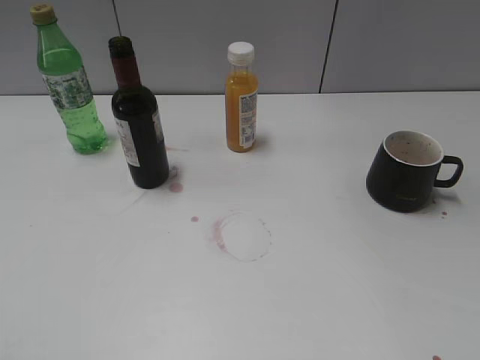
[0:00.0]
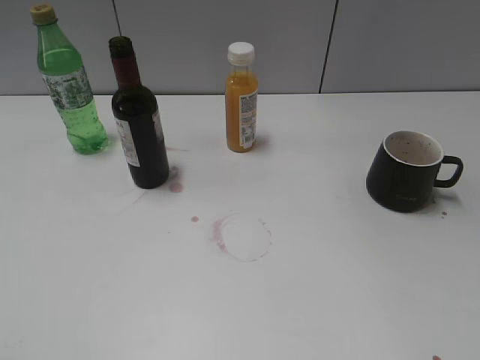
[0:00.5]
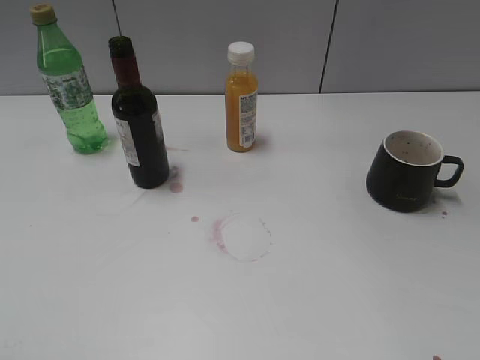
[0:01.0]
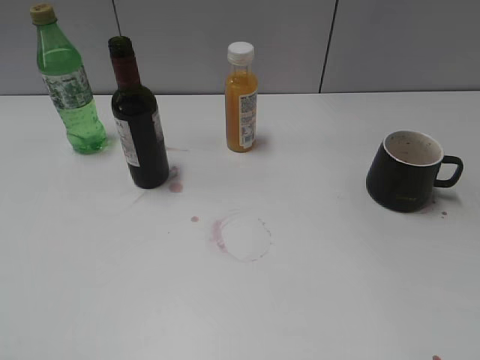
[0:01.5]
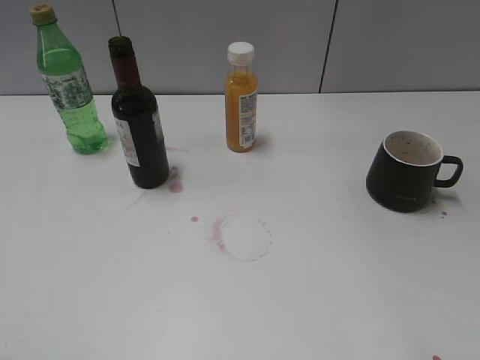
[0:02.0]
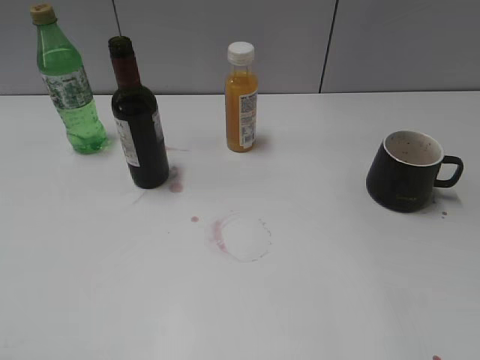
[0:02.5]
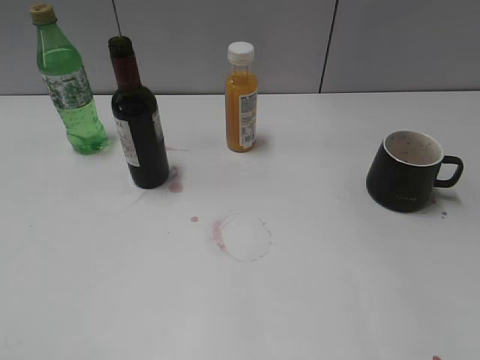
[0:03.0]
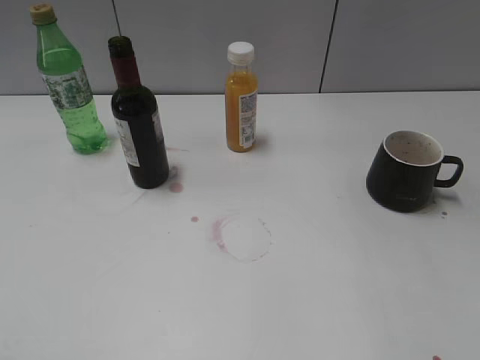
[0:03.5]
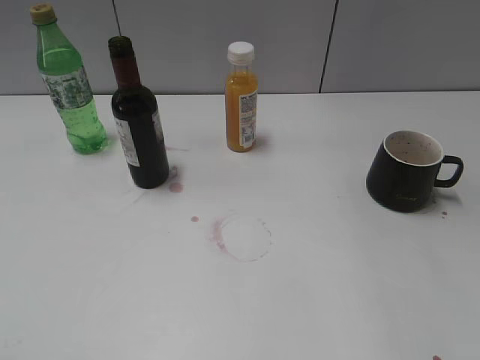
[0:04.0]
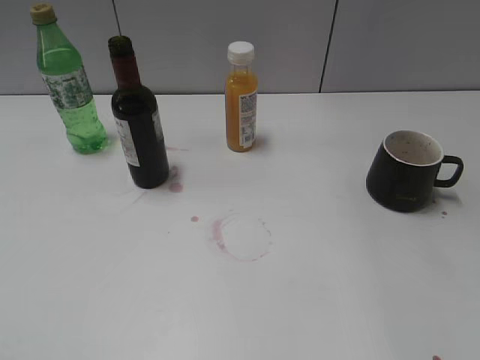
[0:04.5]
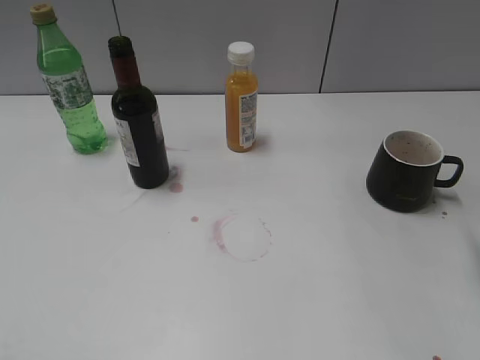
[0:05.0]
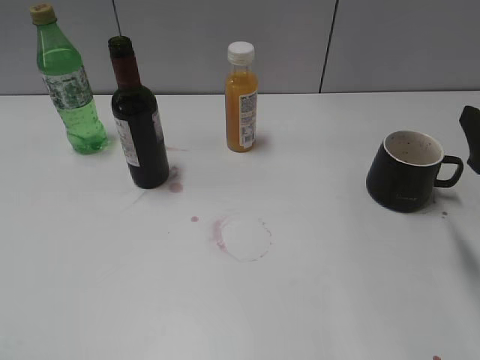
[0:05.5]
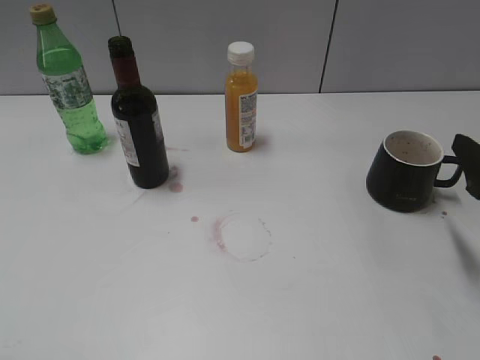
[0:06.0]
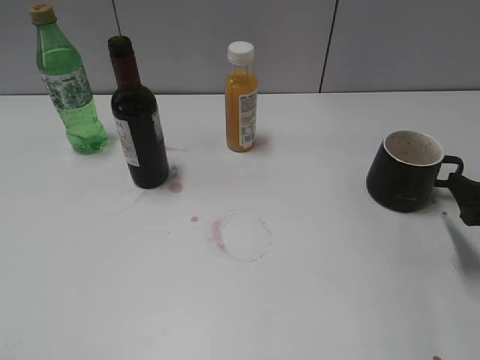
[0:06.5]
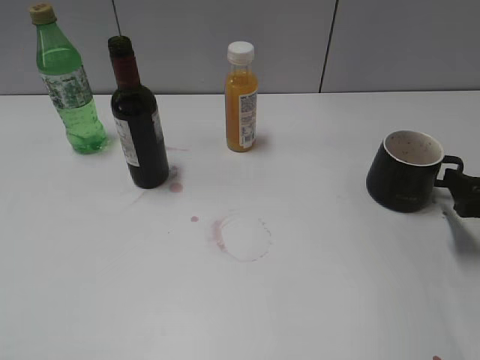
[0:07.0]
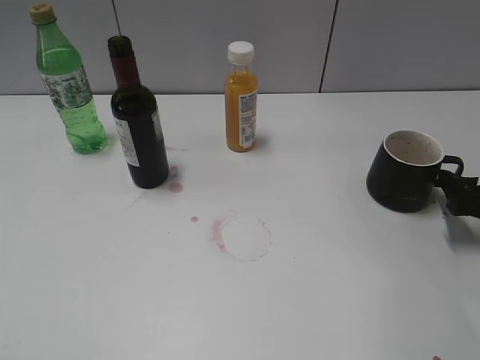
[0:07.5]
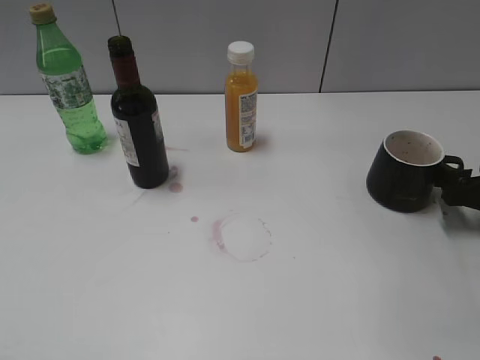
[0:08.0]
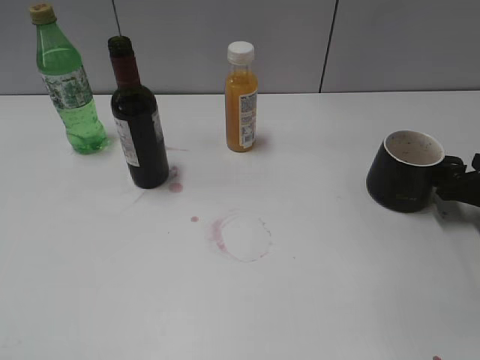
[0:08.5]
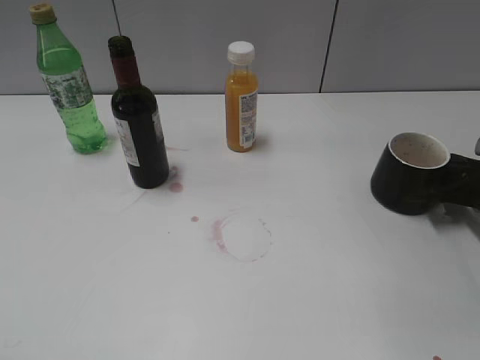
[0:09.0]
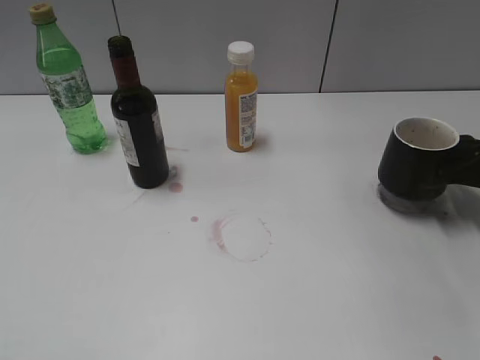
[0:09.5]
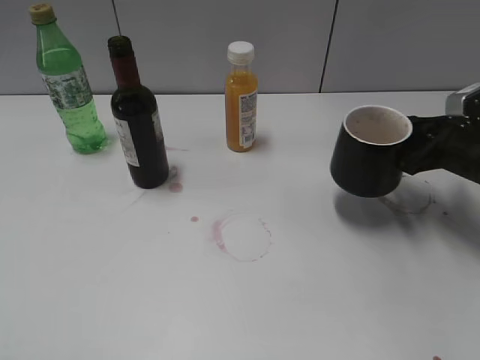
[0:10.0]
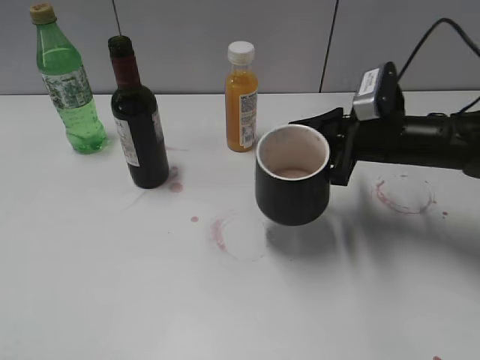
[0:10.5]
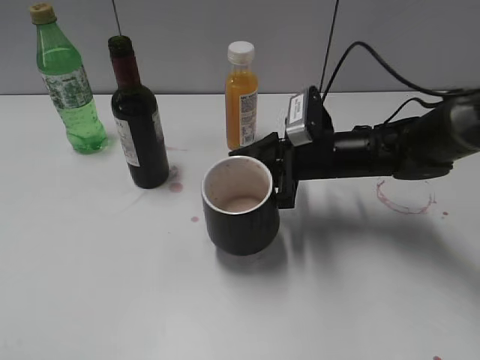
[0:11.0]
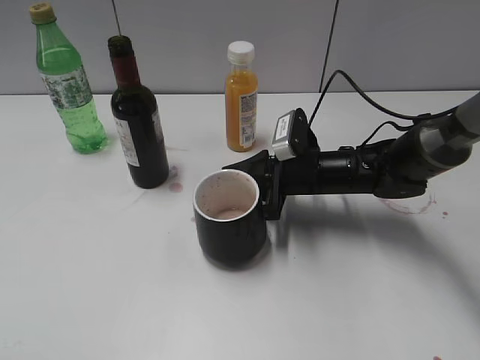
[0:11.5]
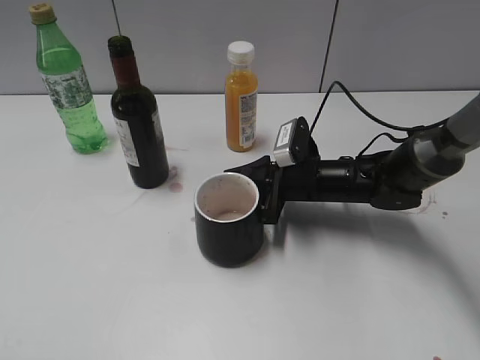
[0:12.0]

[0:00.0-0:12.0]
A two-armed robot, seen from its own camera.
Step, 0:05.5 to 0:09.0: Grasp the black cup with right gripper.
0:04.0 to 0:06.0: The right gripper goes about 10 cm downward and forward.
0:06.0 to 0:08.0: The right gripper shifts approximately 10 cm downward and forward.
0:08.0 to 0:10.0: The right gripper heads to the left and upward, covering approximately 10 cm, and closes its fingers.
0:10.0 to 0:12.0: The right gripper shifts roughly 20 cm to the left.

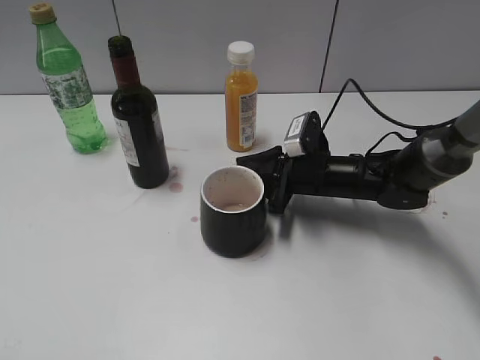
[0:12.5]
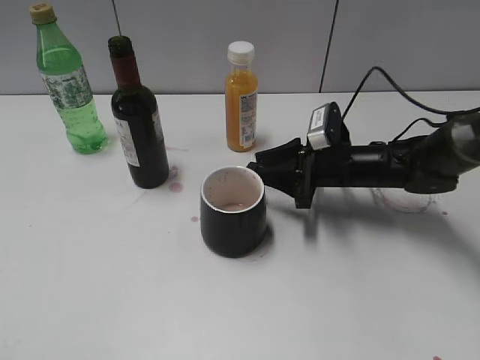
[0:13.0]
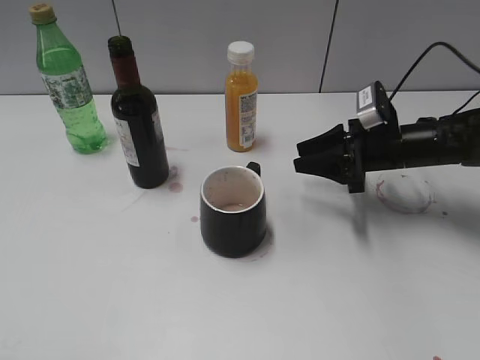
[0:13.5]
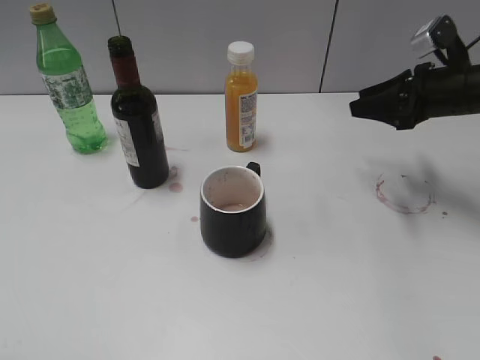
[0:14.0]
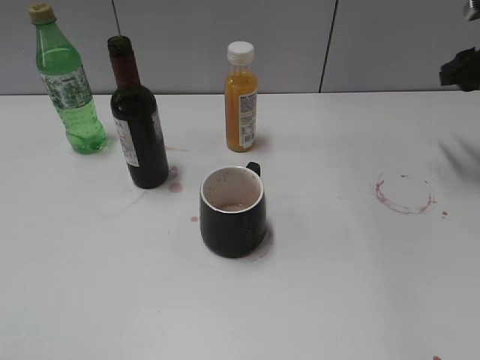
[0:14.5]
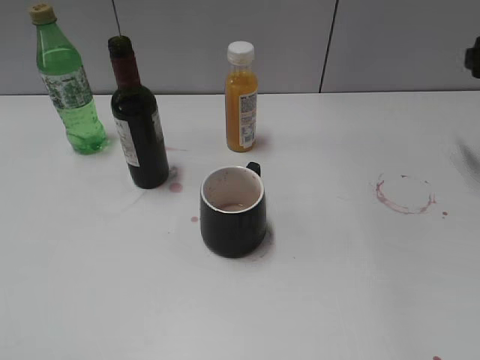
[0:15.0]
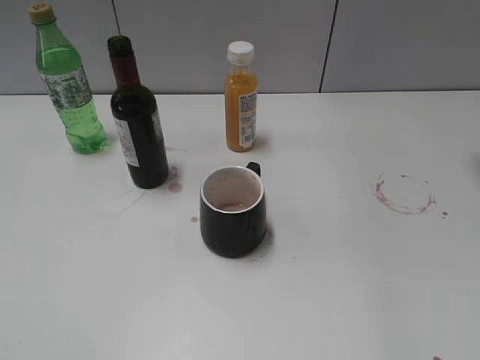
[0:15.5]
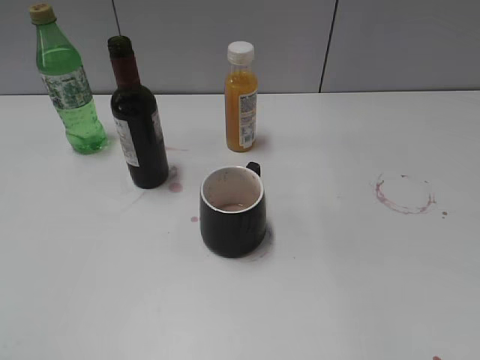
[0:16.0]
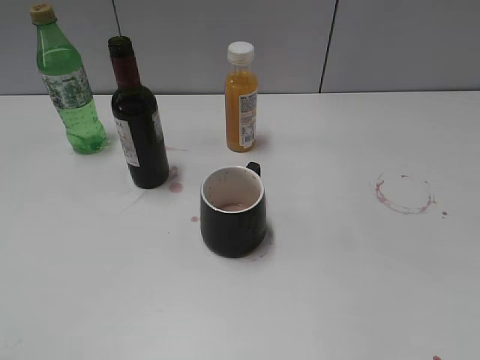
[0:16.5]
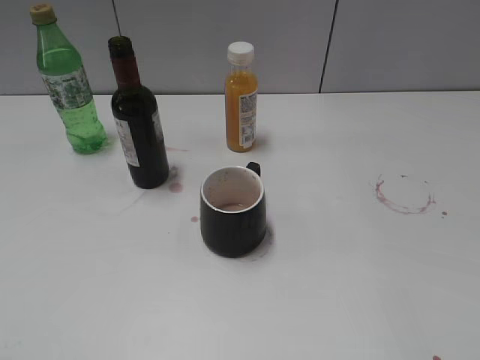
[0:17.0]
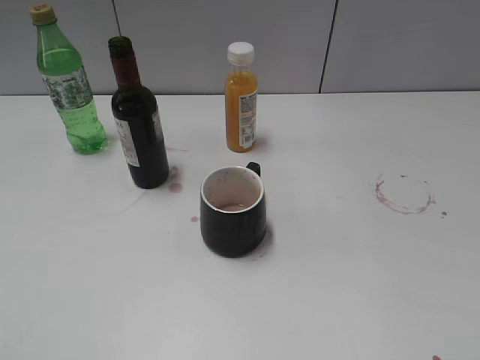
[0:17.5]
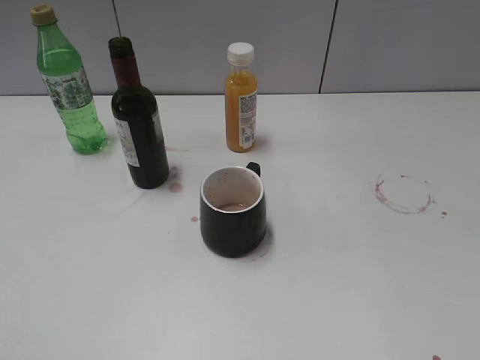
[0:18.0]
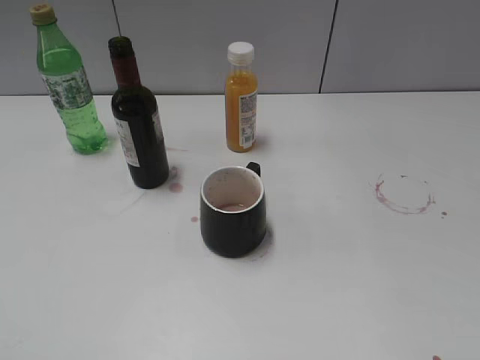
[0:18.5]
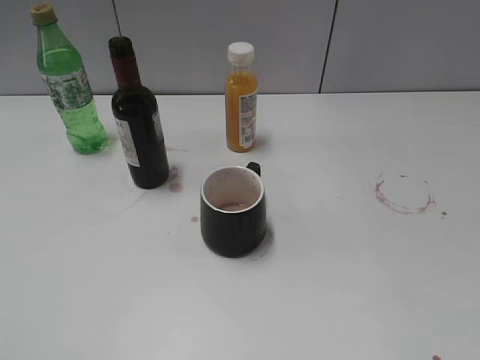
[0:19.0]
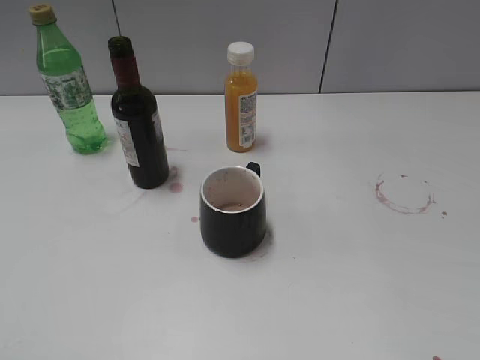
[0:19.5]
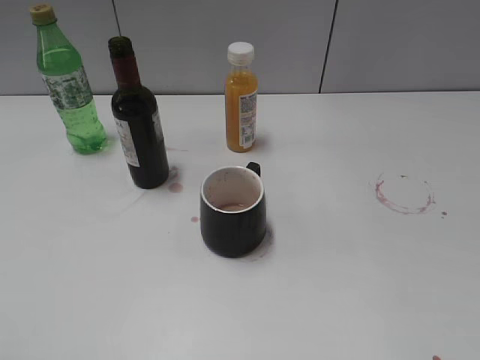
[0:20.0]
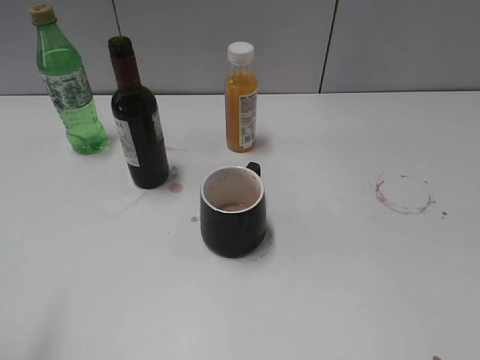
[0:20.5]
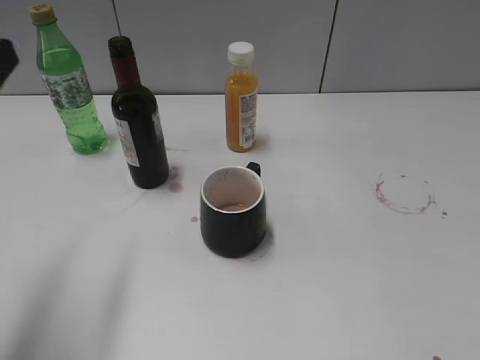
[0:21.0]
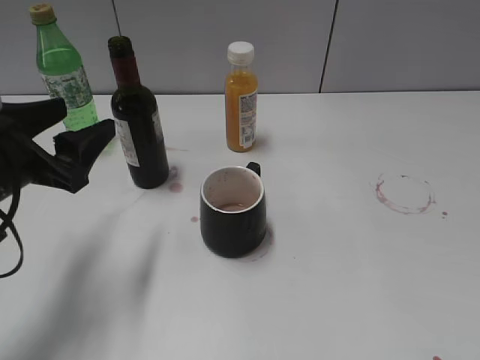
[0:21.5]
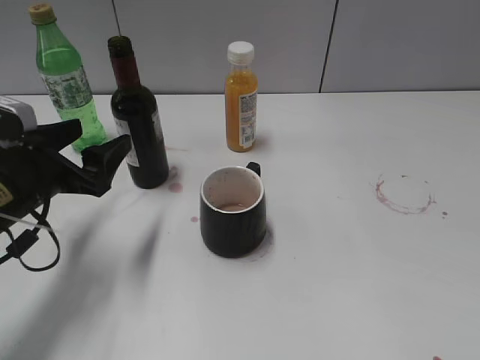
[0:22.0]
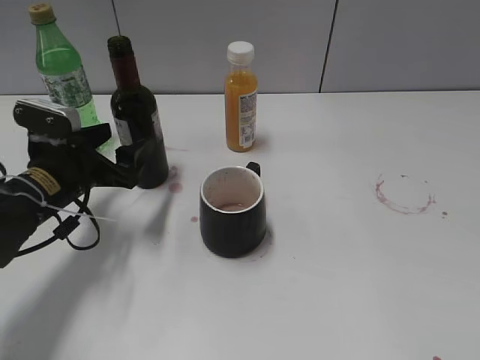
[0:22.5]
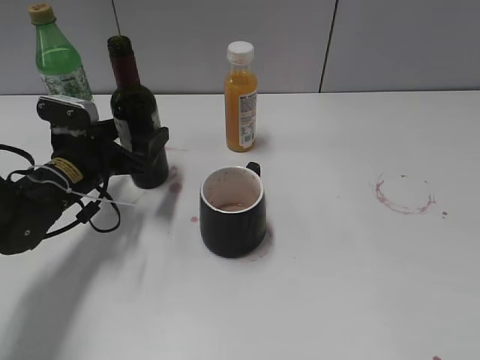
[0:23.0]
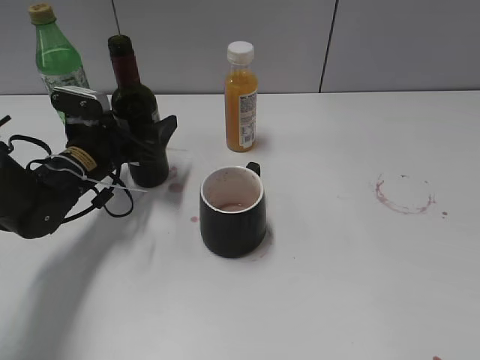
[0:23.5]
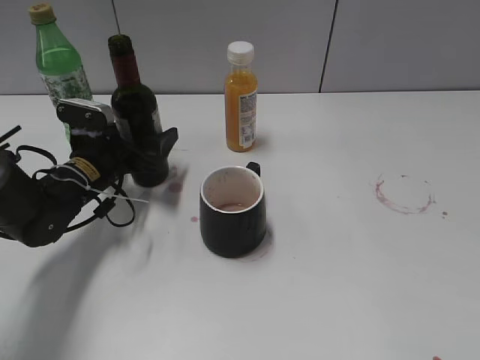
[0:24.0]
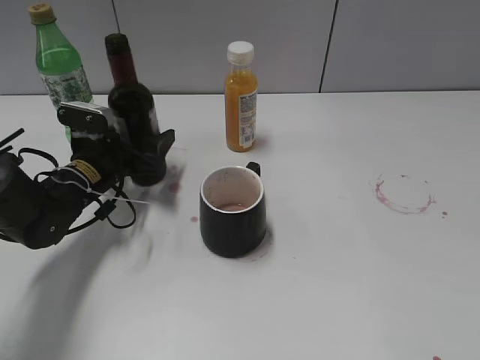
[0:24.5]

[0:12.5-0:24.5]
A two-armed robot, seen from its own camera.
0:12.5 to 0:14.5: The right gripper moves to the right and upward, roughly 25 cm.
0:14.5 to 0:16.5: The right gripper shifts about 20 cm upward and backward, and opens.
0:20.5 to 0:22.5: The left gripper shifts approximately 30 cm forward and downward, and opens its fingers.
0:22.5 to 0:24.5: The left gripper travels forward by some 5 cm, and closes its fingers.

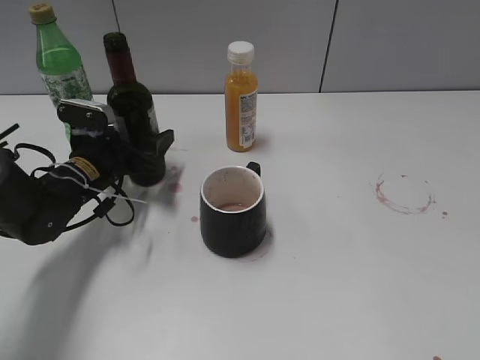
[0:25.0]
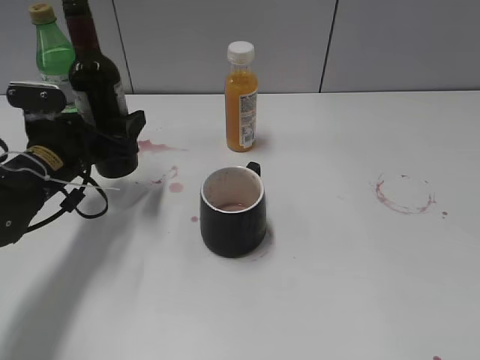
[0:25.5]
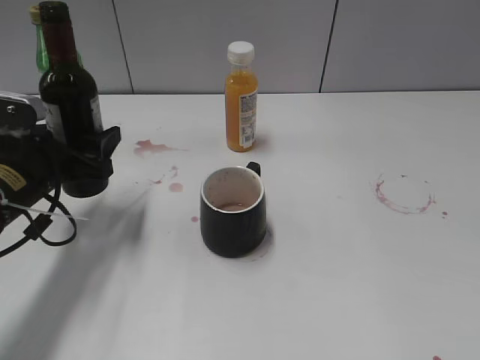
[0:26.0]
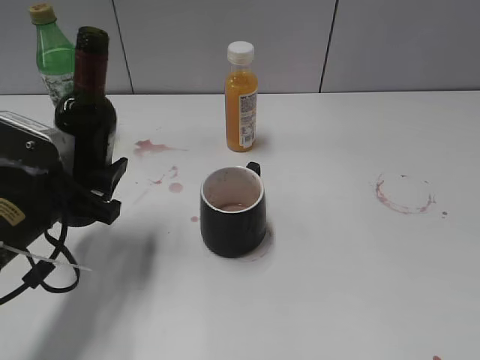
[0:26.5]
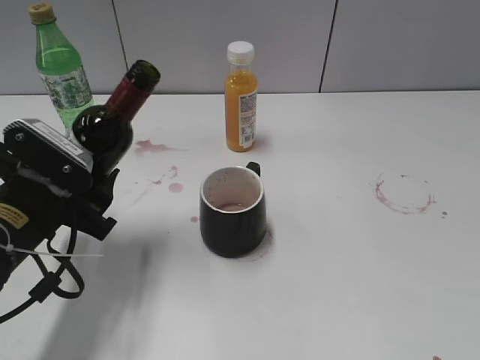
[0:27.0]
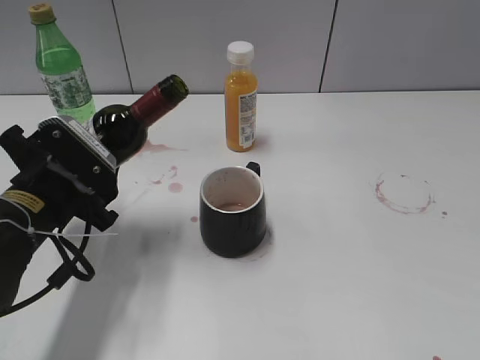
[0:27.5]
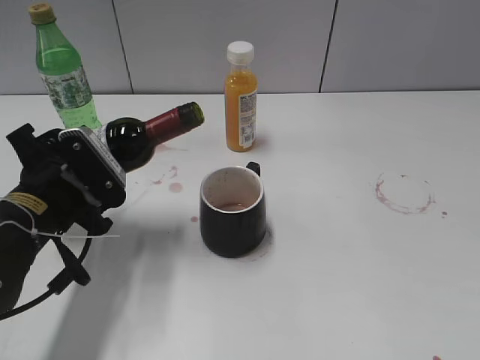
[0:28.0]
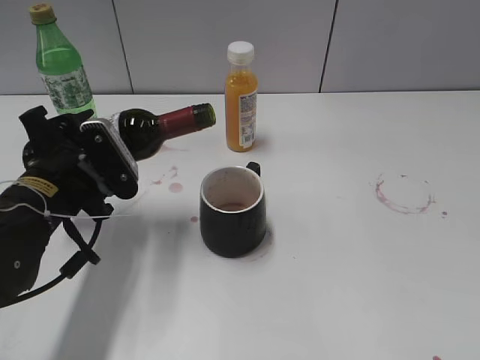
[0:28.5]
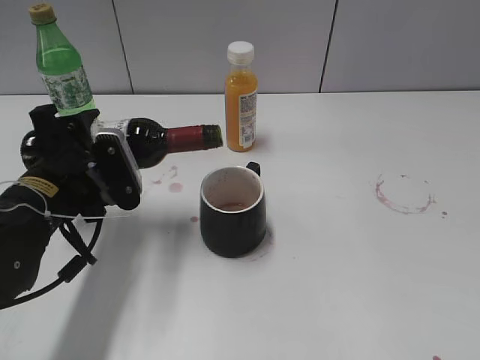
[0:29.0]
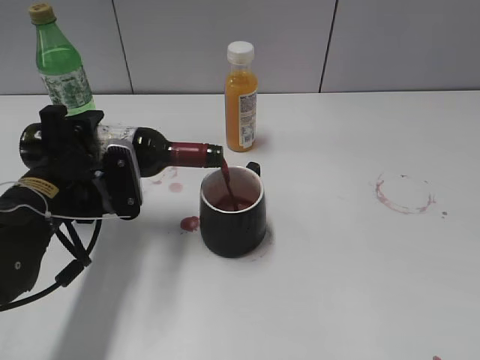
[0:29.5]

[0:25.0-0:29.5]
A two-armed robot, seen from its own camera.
0:25.0 to 0:27.0: The left gripper is displaced backward and upward by some 15 cm.
